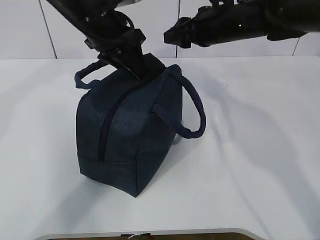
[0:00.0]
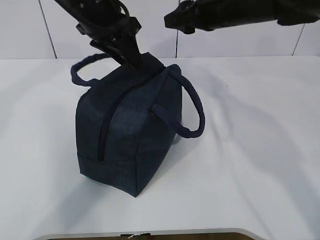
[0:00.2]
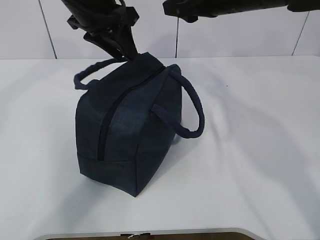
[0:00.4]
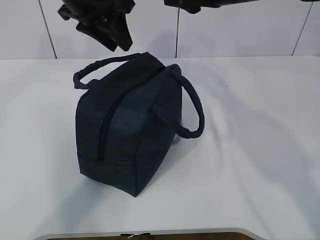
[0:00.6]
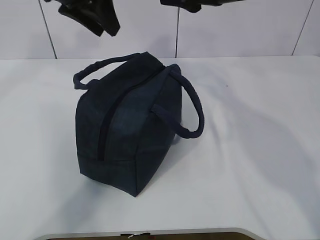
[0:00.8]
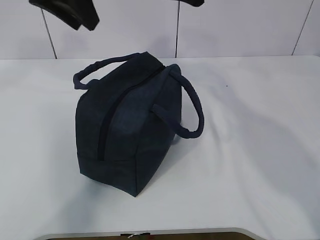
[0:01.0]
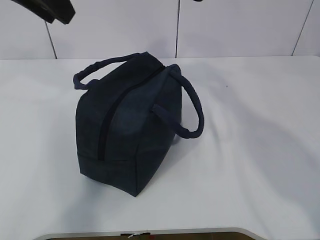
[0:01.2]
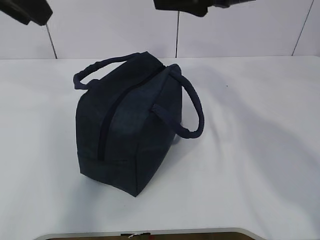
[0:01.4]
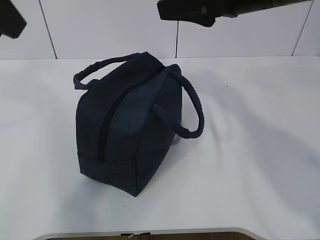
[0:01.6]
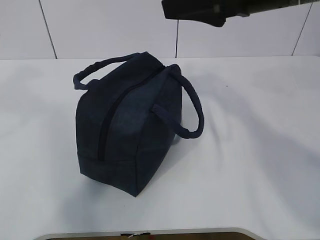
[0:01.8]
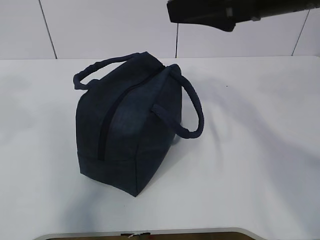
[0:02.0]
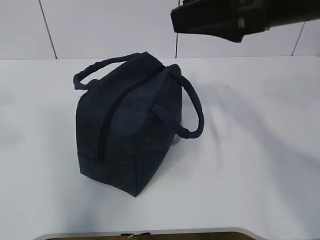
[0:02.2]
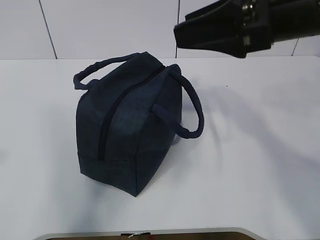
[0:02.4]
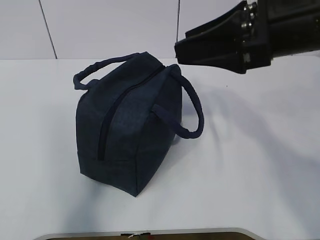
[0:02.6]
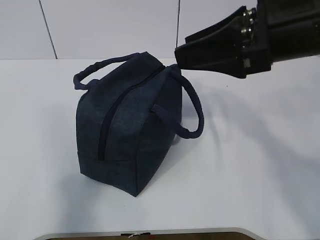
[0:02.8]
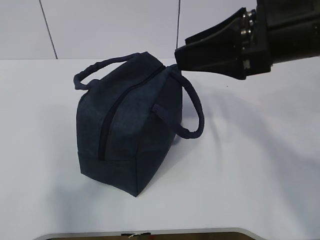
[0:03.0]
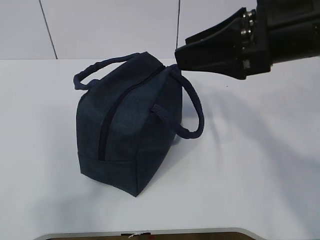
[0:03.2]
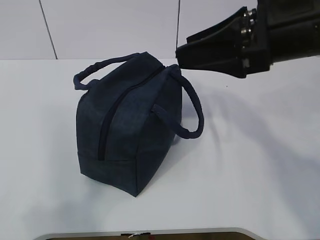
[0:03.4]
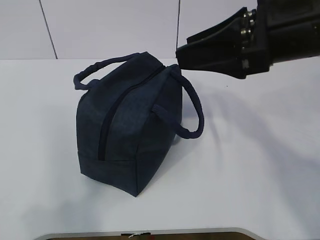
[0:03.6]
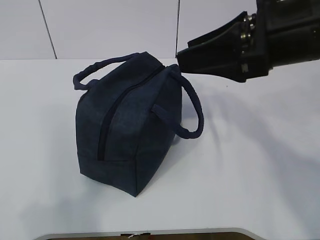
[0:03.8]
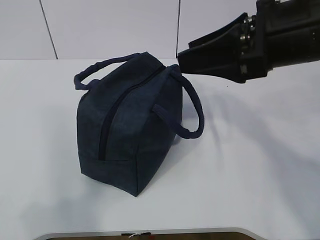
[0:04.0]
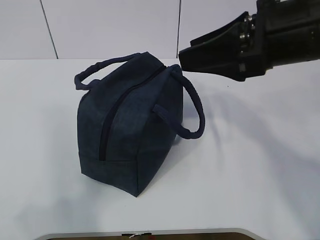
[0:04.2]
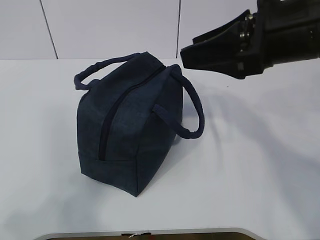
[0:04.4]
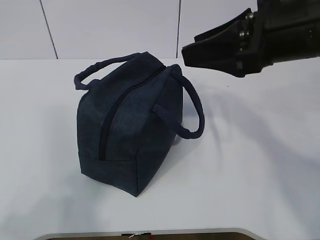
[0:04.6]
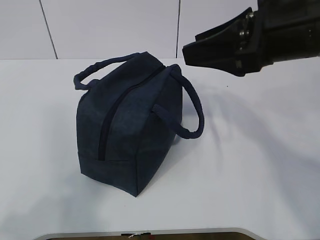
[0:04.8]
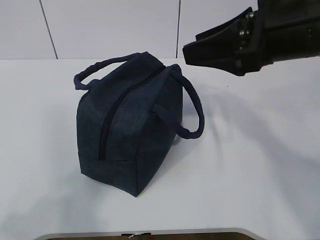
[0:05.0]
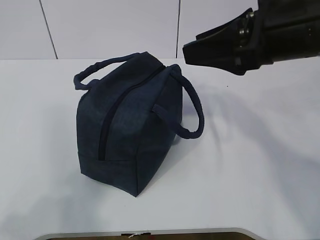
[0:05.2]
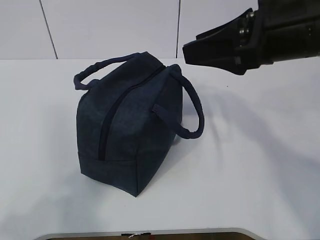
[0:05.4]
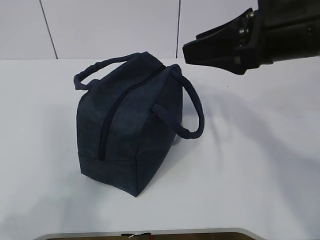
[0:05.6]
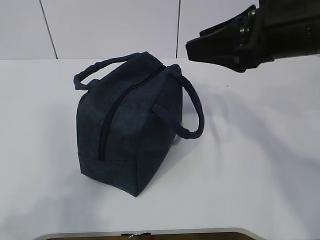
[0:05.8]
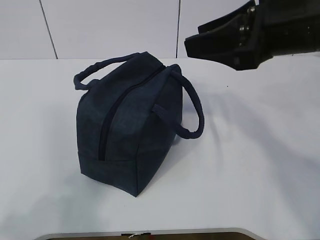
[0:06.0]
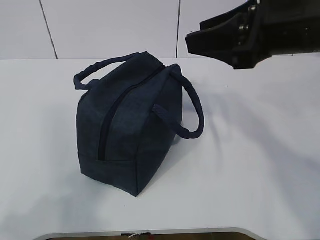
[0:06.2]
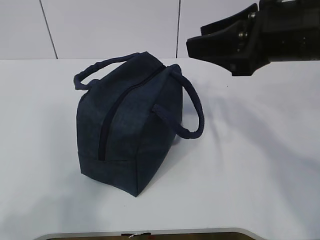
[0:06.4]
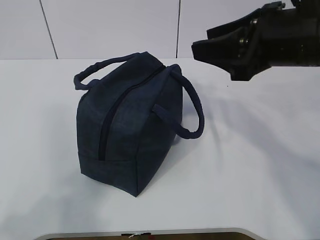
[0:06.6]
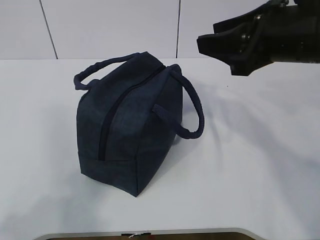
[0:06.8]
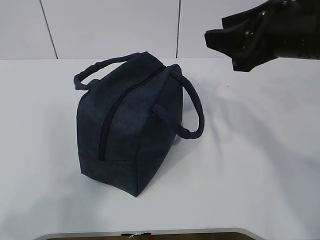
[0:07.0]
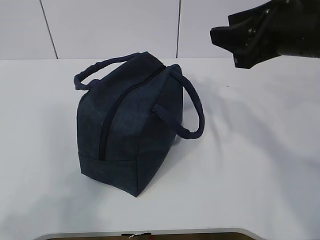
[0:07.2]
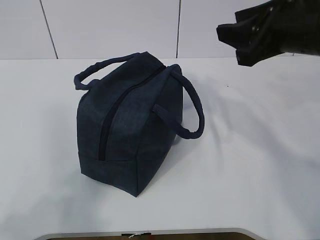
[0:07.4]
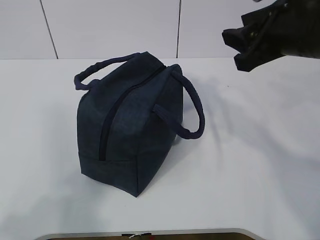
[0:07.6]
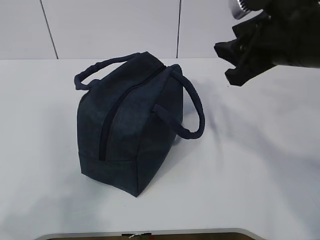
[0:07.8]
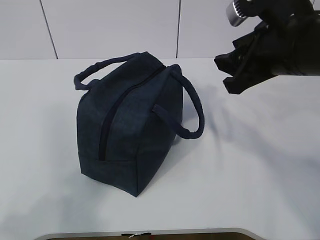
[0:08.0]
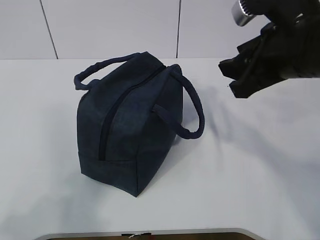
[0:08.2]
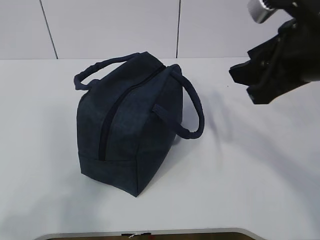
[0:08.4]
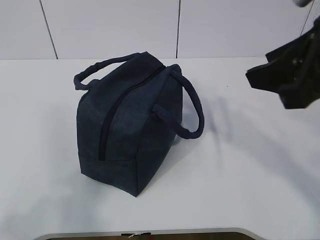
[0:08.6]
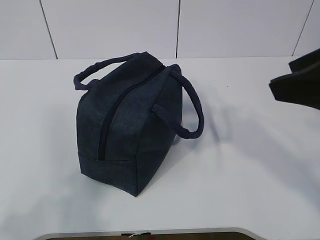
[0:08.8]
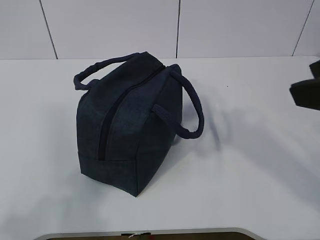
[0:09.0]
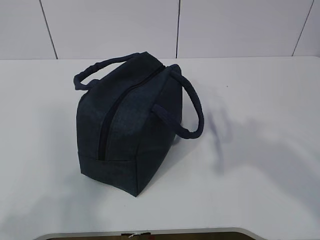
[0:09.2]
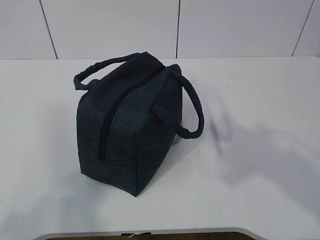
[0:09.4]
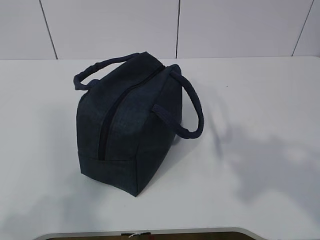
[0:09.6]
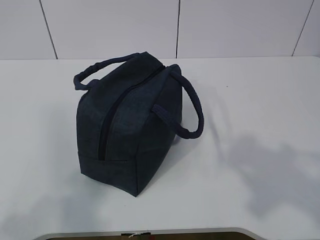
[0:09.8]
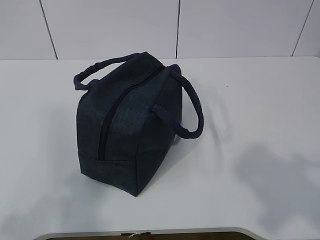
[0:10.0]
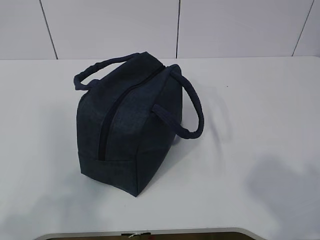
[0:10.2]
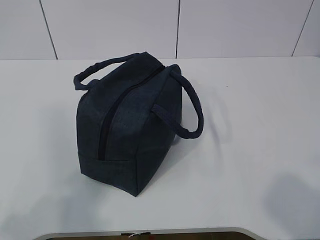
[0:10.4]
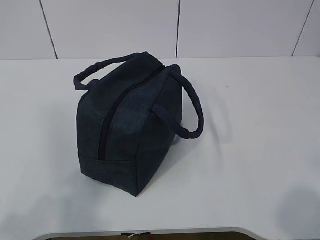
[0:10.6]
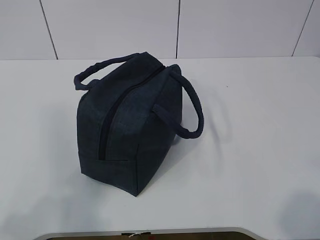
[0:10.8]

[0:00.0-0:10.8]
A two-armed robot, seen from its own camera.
0:00.0 to 0:01.6: The left gripper travels backward, upward and to the left by about 25 cm. The right gripper shifts approximately 15 cm backward and upward.
0:01.6 to 0:03.0: The left gripper shifts roughly 25 cm backward, downward and to the left. The right gripper moves backward, approximately 10 cm.
0:04.6 to 0:06.2: There are only small adjustments of the grippers.
0:07.8 to 0:09.2: The right gripper travels backward by roughly 15 cm.
0:09.2 to 0:10.8: The right gripper shifts approximately 20 cm backward and to the right.

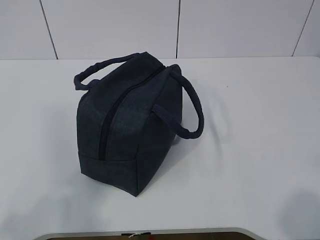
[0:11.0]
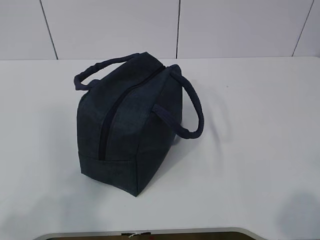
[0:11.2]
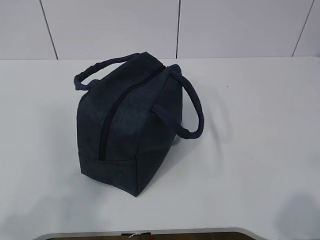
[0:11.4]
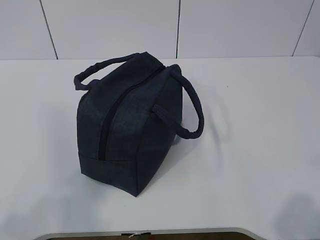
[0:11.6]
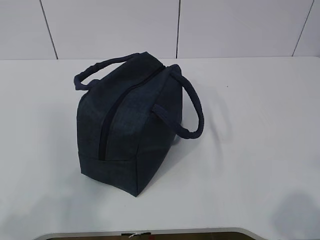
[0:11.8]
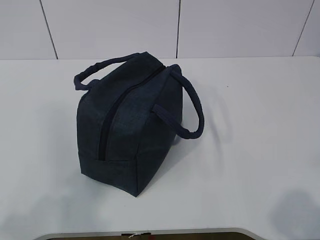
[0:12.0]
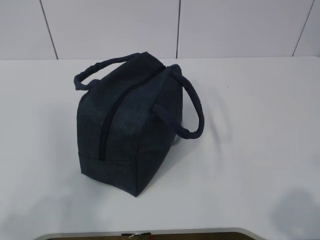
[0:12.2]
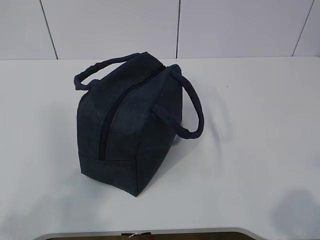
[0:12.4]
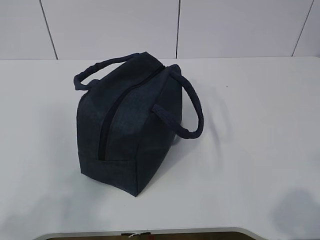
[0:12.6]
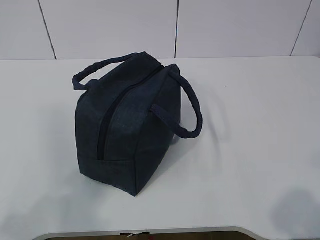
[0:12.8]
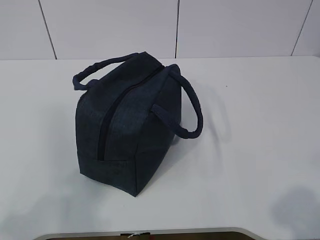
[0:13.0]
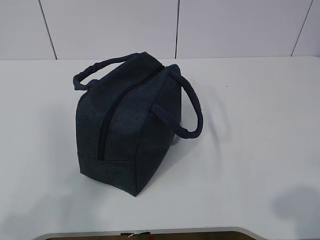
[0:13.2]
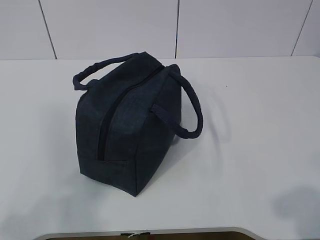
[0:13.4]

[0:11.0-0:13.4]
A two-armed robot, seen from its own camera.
0:12.2 to 0:13.4: The grippers make only small movements.

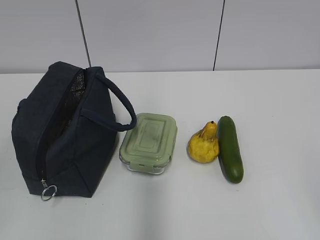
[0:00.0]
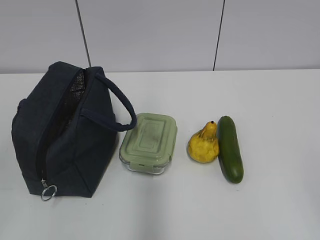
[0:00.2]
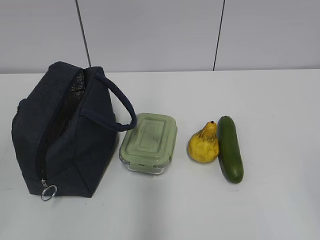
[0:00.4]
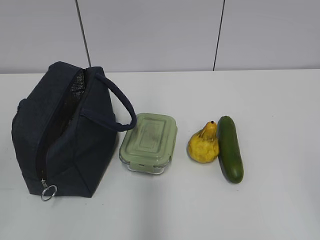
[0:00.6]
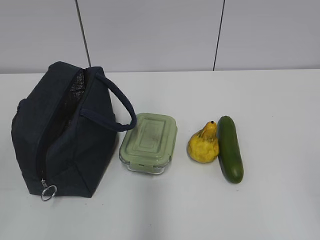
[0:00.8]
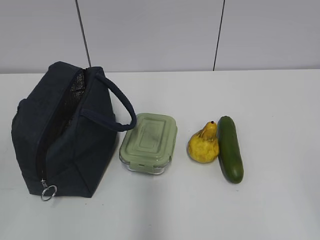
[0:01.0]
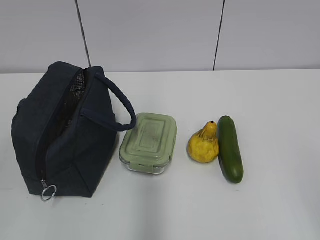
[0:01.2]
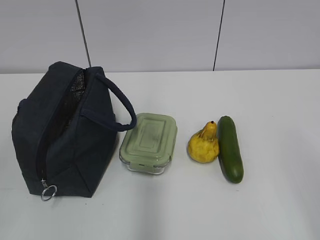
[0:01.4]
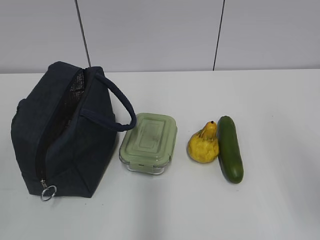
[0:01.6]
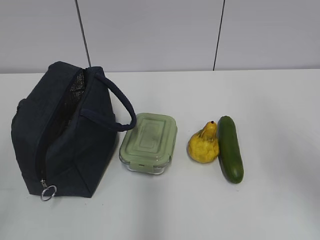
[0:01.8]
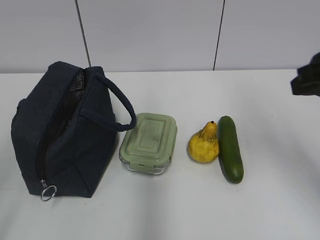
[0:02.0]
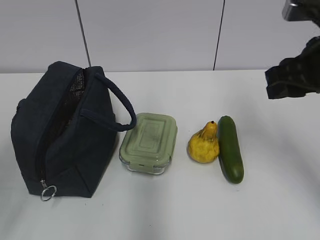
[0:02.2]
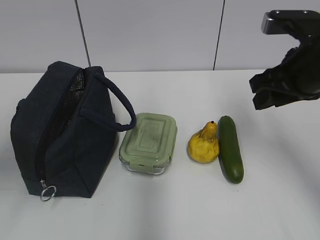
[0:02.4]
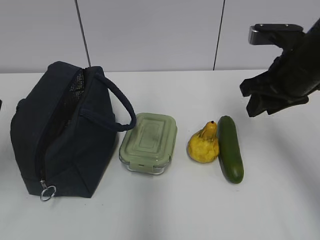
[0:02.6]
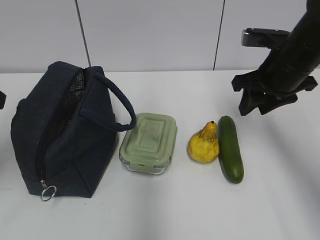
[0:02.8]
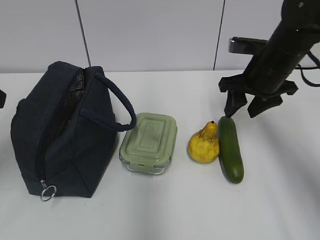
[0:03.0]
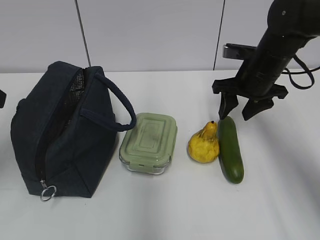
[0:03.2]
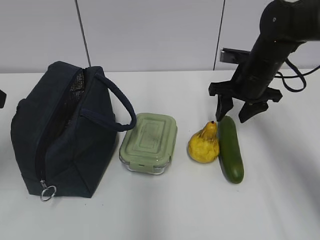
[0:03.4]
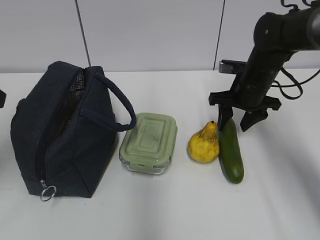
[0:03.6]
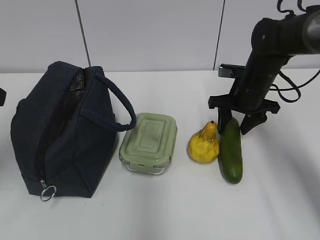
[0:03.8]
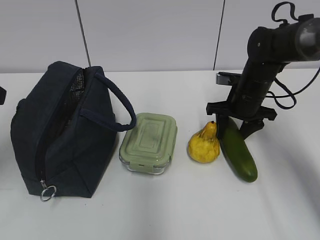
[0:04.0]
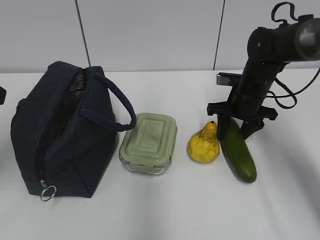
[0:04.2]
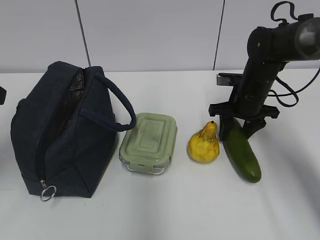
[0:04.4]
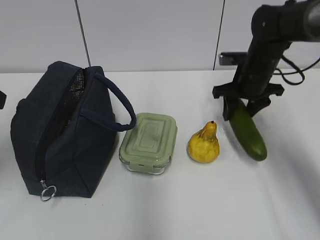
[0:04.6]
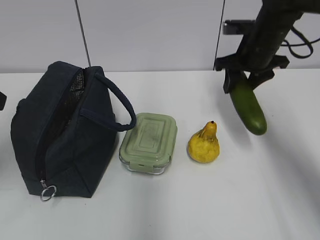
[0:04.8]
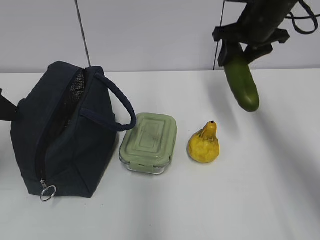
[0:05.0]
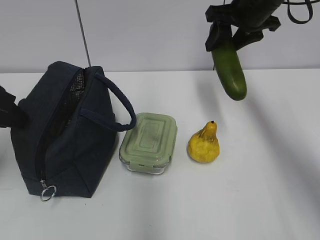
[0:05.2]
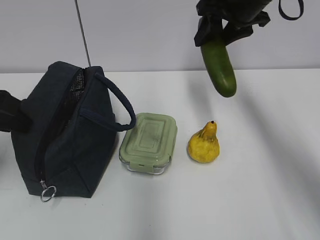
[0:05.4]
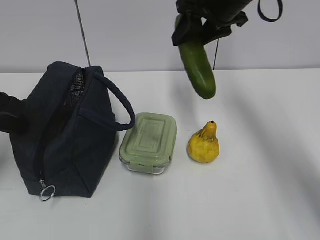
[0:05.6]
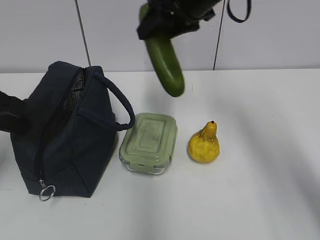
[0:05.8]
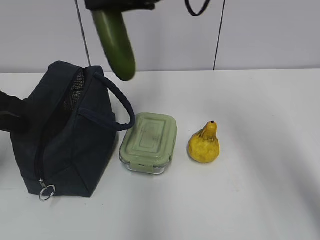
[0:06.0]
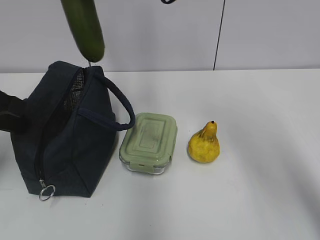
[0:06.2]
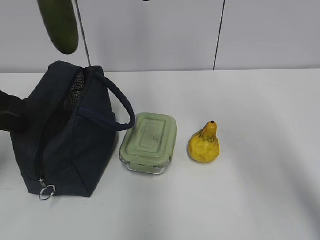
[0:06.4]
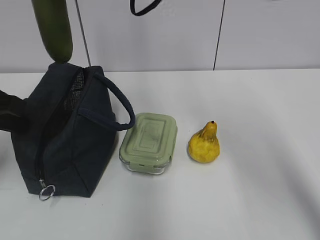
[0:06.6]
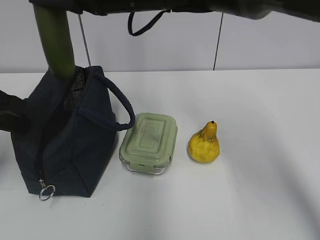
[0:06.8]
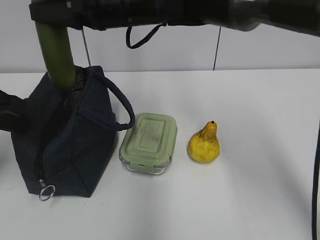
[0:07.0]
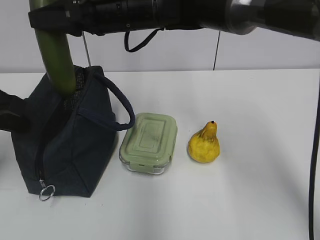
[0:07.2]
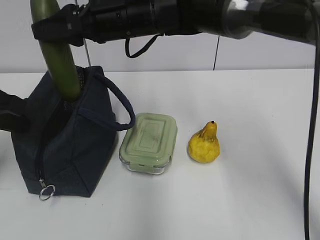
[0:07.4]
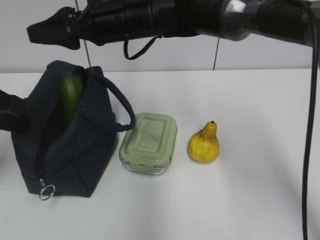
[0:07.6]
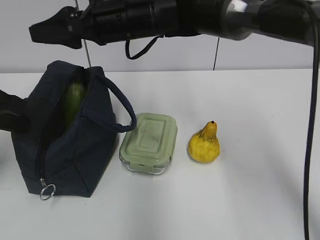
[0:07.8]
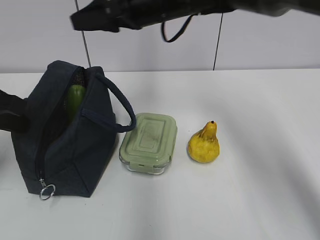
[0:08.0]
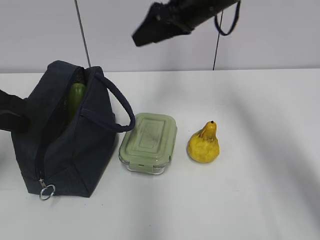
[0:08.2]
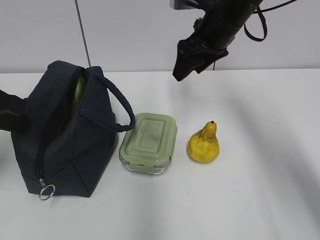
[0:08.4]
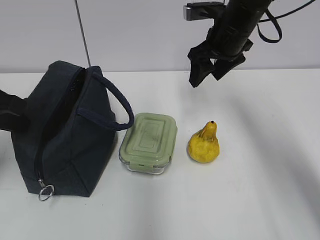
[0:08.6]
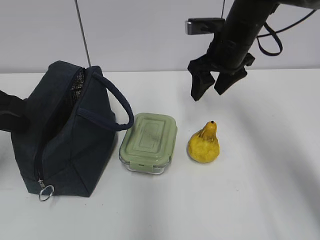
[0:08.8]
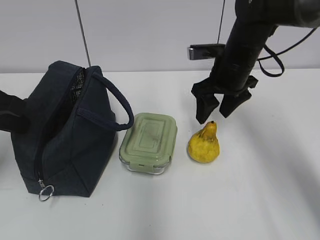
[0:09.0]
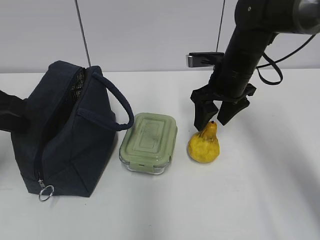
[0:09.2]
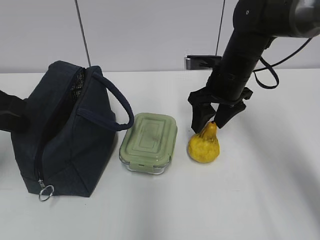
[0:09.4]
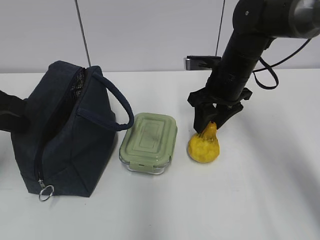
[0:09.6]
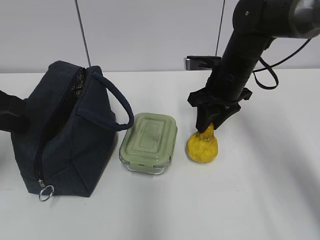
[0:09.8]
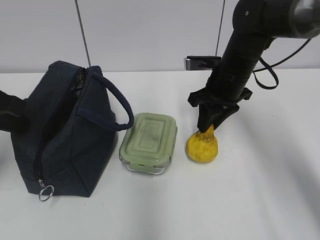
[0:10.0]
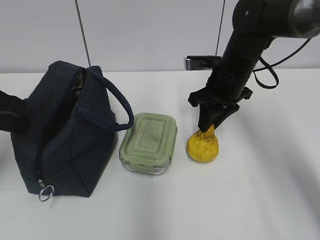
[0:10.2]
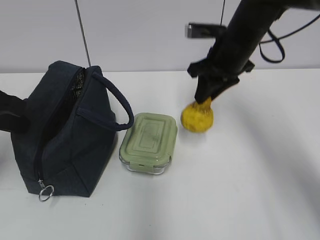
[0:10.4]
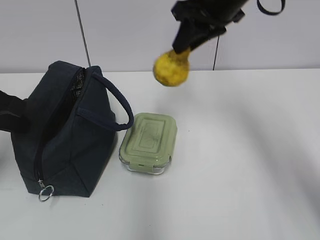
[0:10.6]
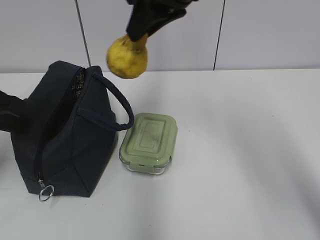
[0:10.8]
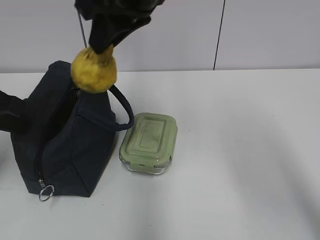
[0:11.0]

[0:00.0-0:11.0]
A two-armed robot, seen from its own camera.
0:01.6 to 0:03.2: The two grippers go about 25 cm forward.
0:03.2 to 0:04.8: The right gripper ends up some 5 cm from where it was.
0:04.8 to 0:06.2: The left gripper moves about 5 cm, and closes. Meanwhile the right gripper shifts some 25 cm to the left and upward.
0:06.2 to 0:07.8: The right gripper travels downward by some 10 cm.
0:07.8 to 0:09.4: The right gripper is displaced to the right and downward by roughly 20 cm.
0:09.4 to 0:11.0: The right gripper shifts about 25 cm upward and to the left, and closes.
